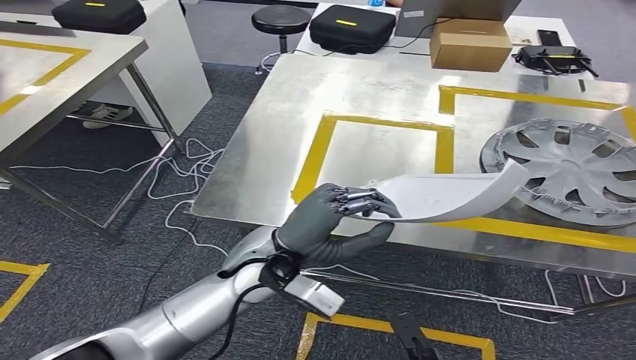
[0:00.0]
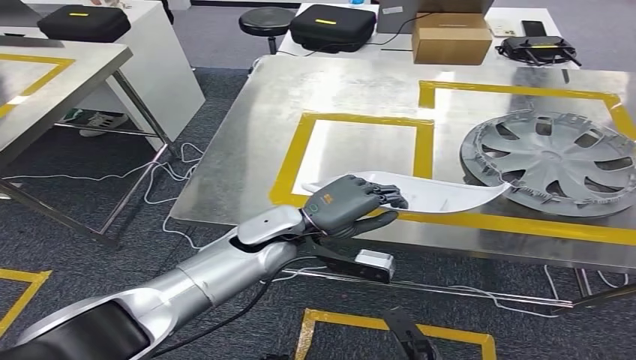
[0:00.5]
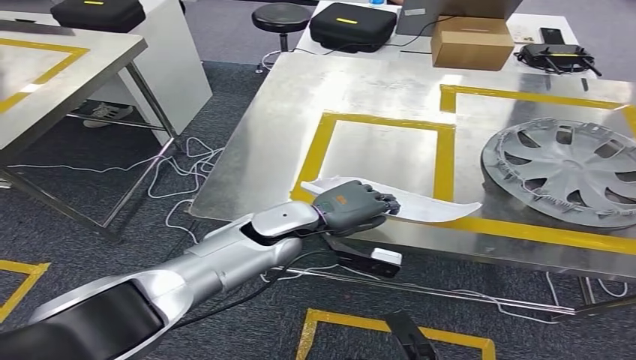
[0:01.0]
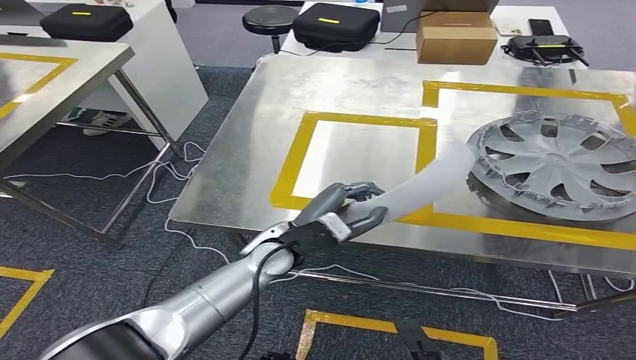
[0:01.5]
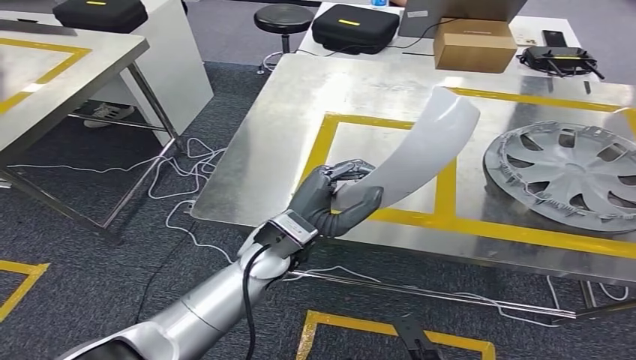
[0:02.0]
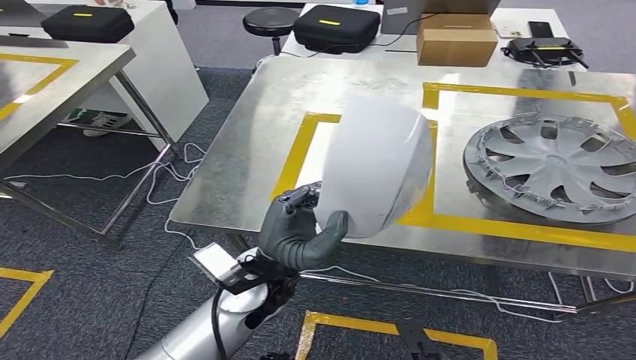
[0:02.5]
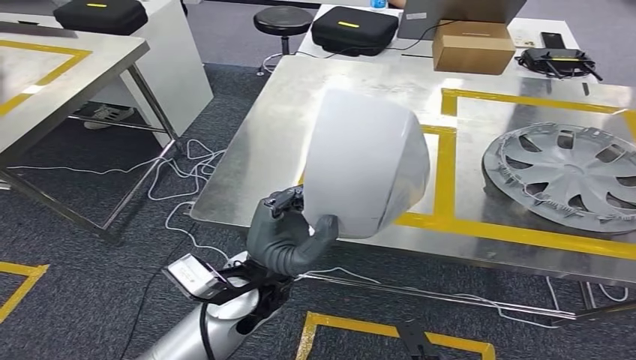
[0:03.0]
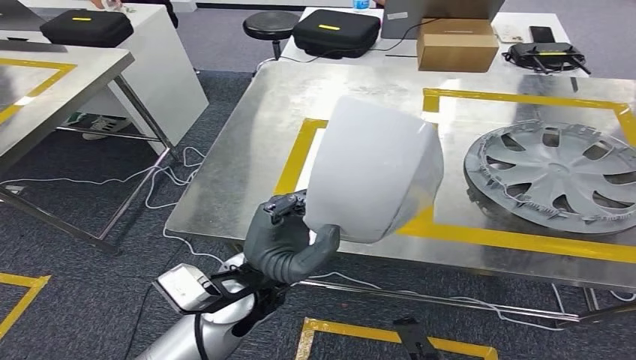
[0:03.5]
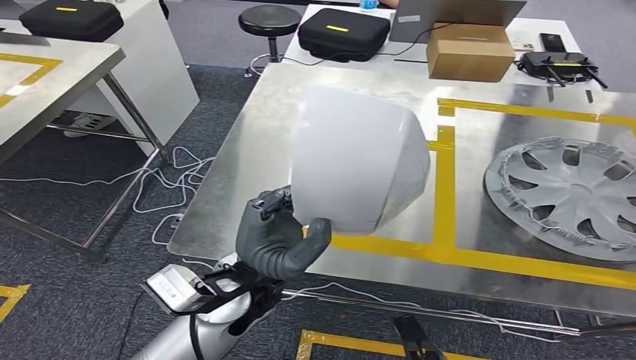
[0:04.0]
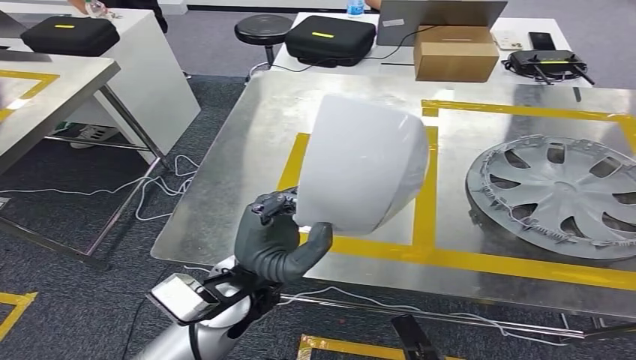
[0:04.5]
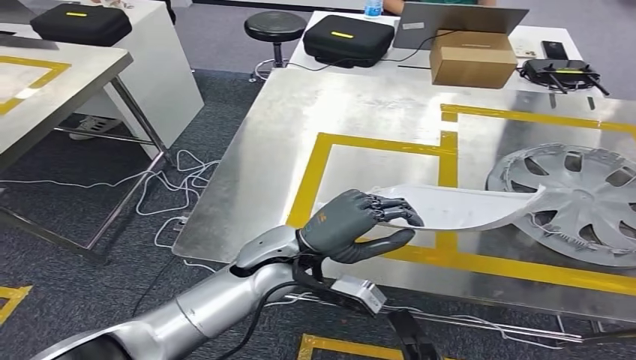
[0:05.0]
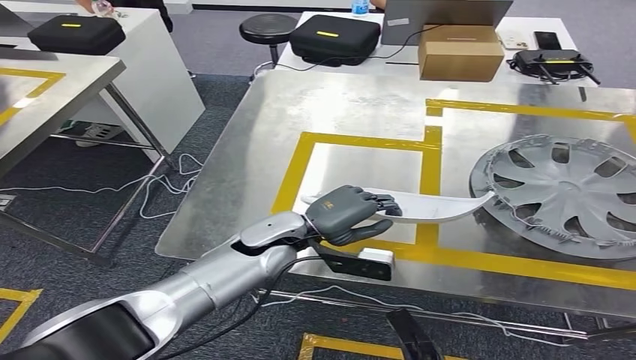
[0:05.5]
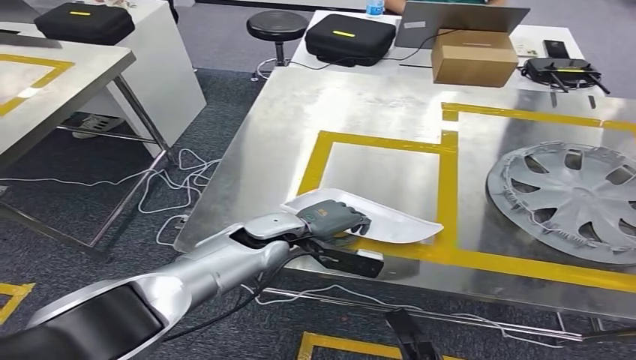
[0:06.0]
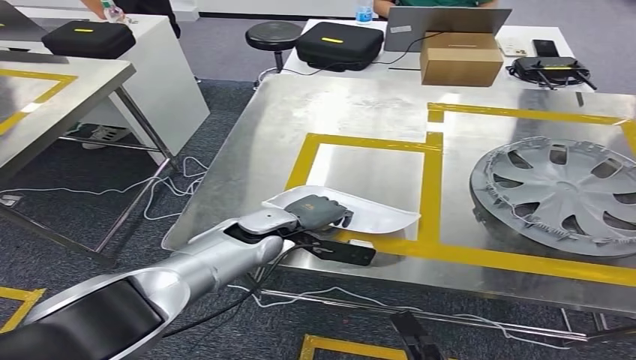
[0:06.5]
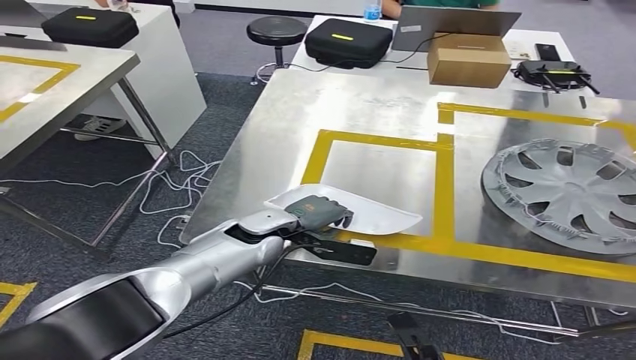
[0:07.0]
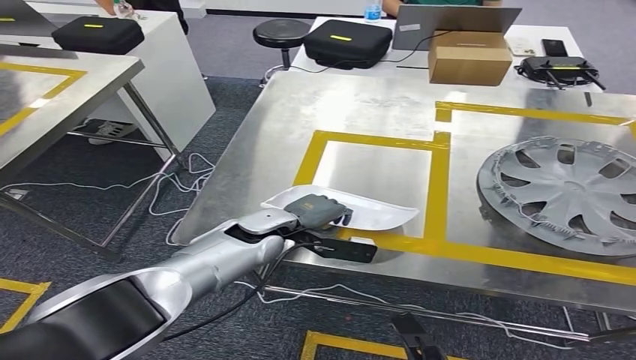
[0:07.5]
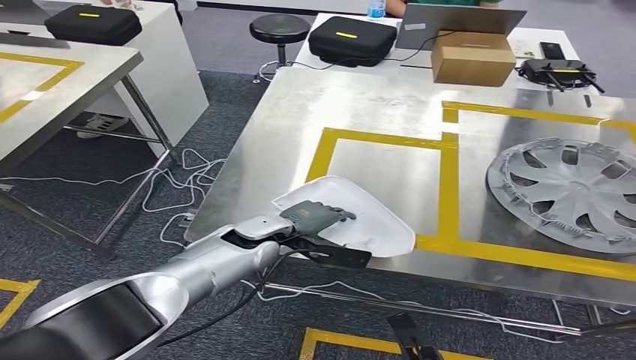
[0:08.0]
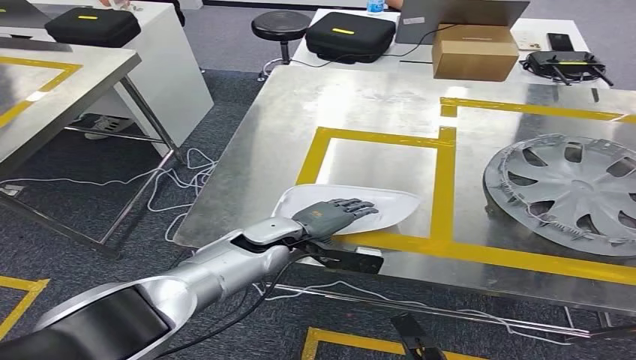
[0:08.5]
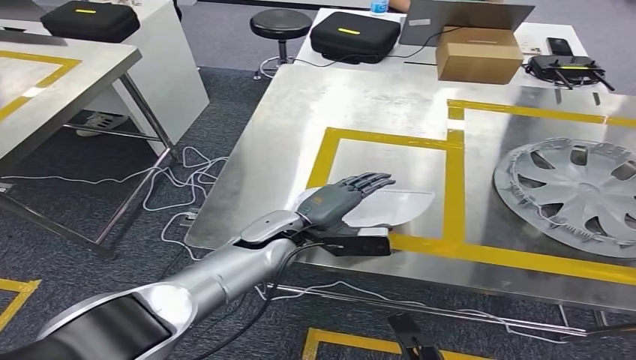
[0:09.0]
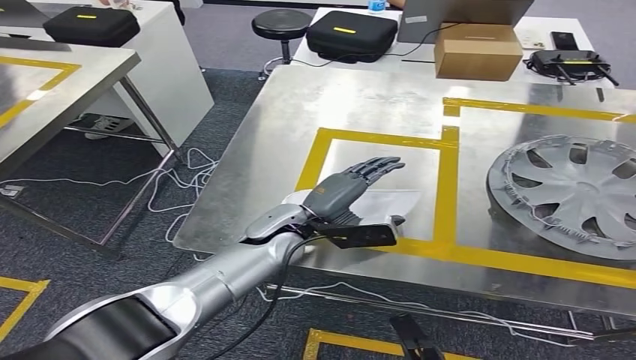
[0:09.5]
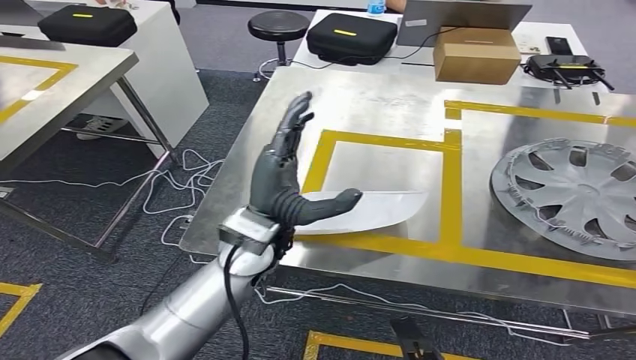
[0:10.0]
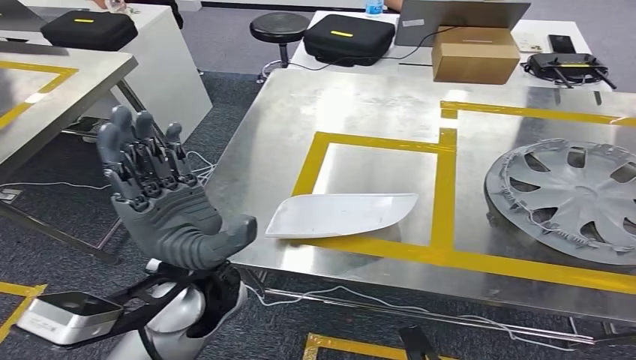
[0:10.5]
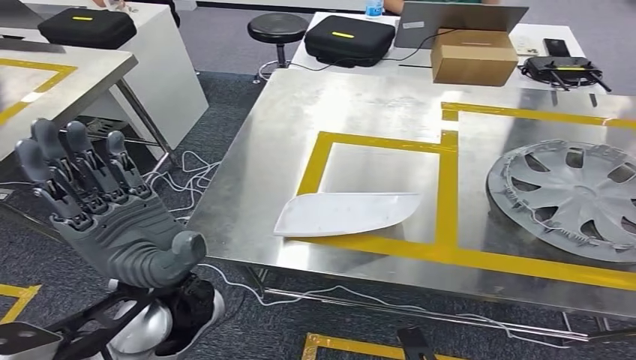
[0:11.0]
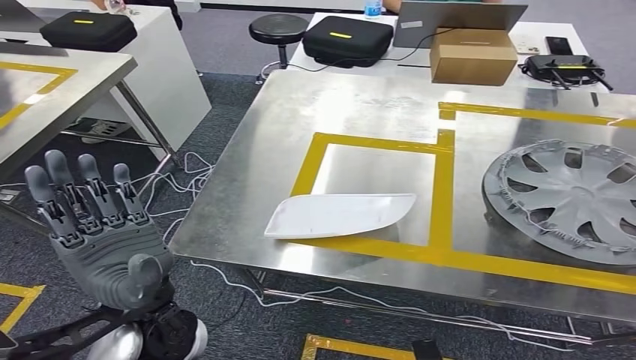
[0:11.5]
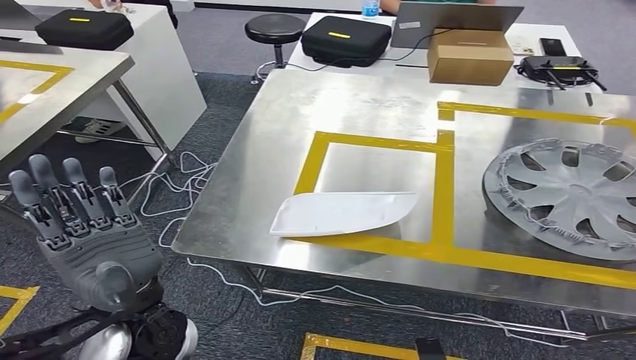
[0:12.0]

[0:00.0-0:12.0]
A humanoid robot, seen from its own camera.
Step, 0:00.0 to 0:08.5: Insert the small parts into the corresponding holes on the workbench.

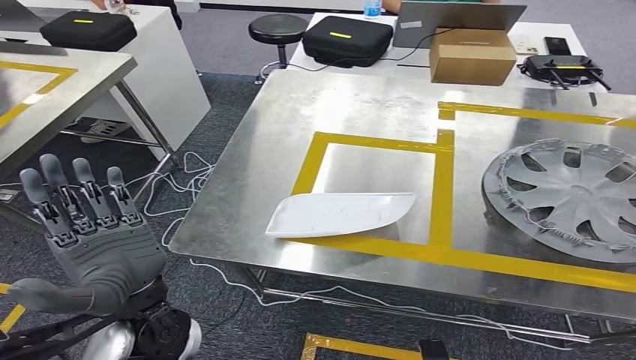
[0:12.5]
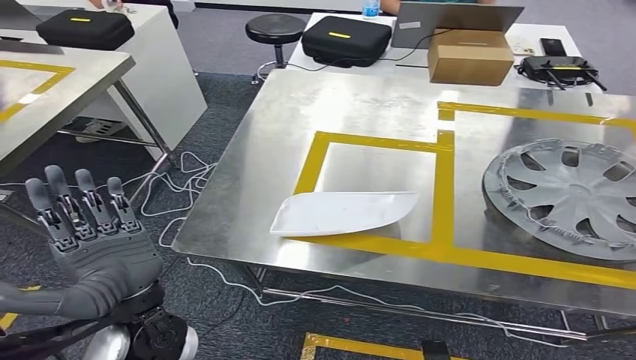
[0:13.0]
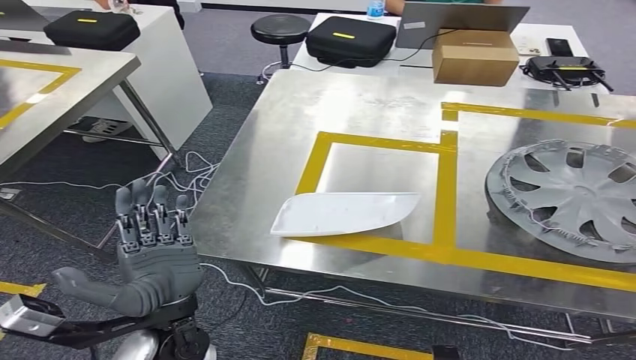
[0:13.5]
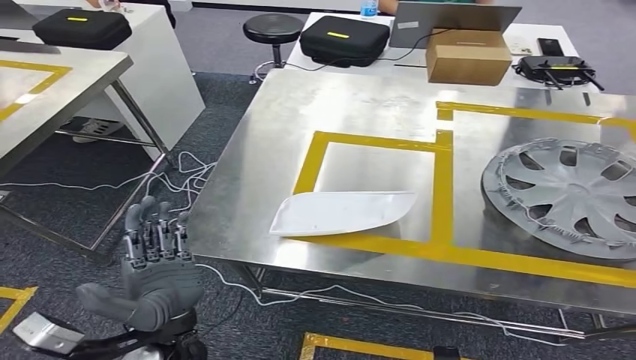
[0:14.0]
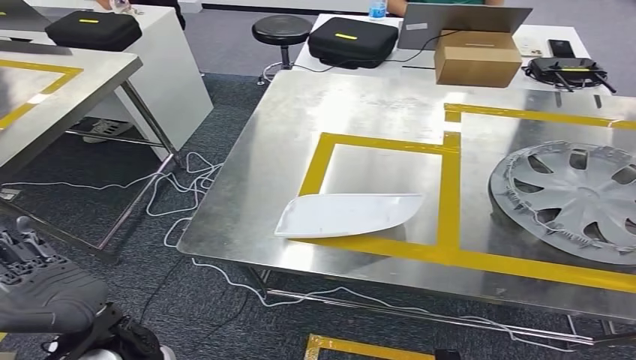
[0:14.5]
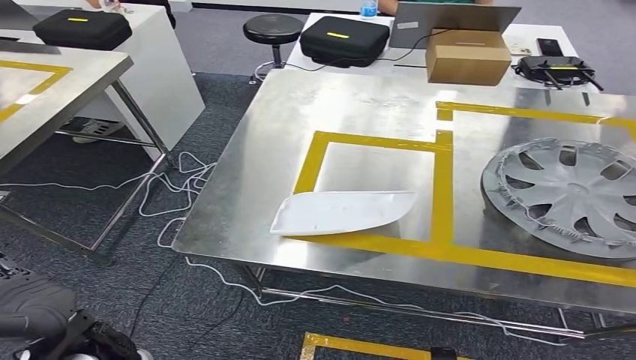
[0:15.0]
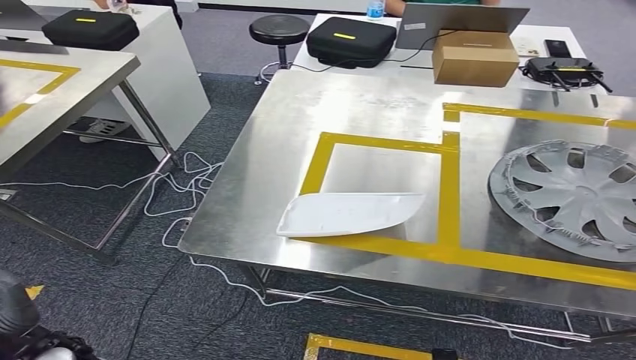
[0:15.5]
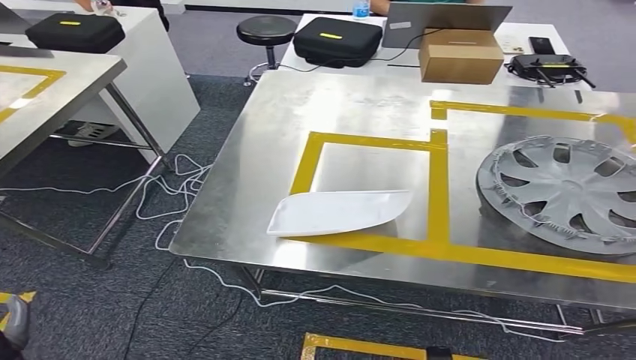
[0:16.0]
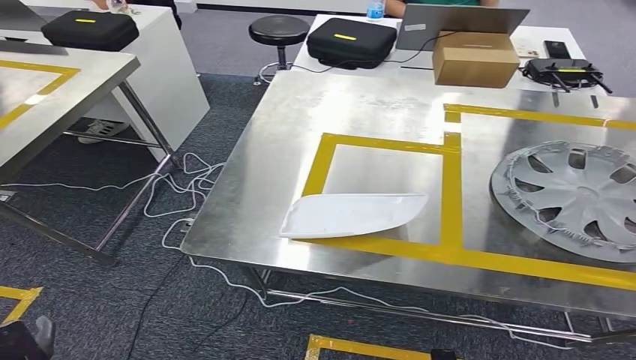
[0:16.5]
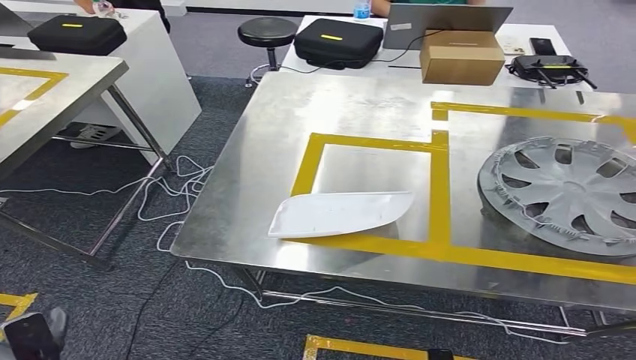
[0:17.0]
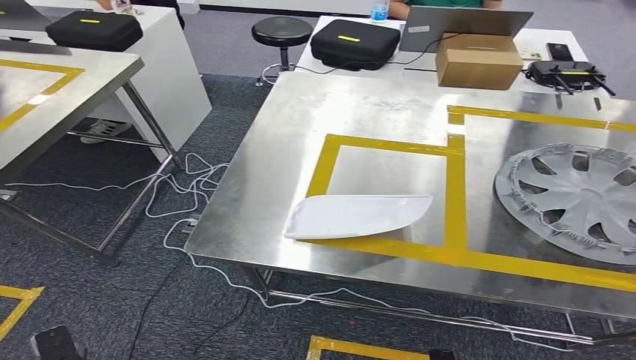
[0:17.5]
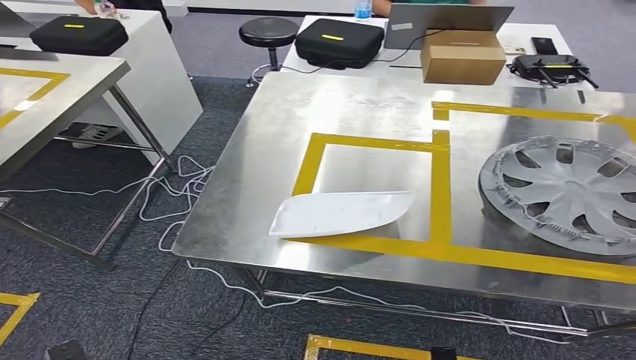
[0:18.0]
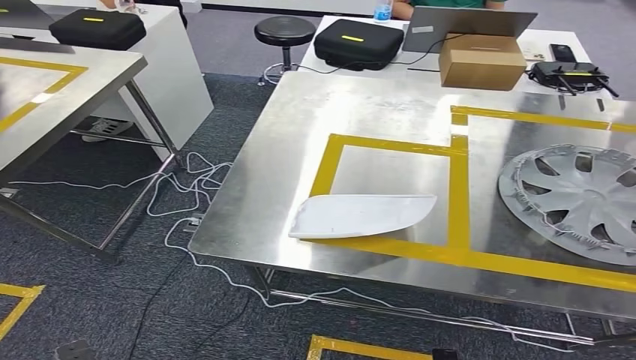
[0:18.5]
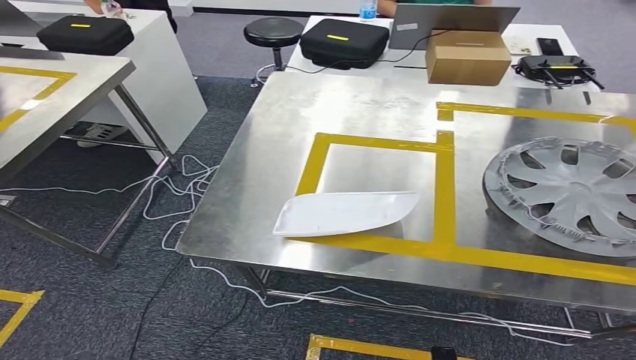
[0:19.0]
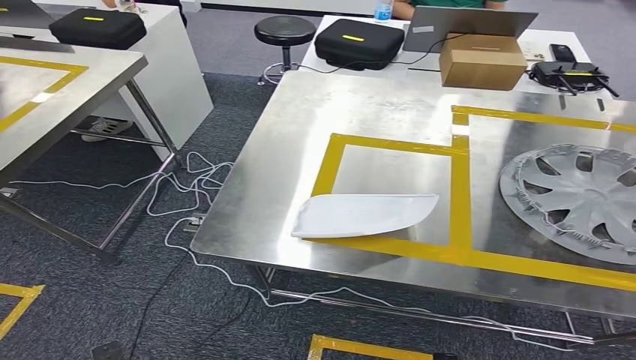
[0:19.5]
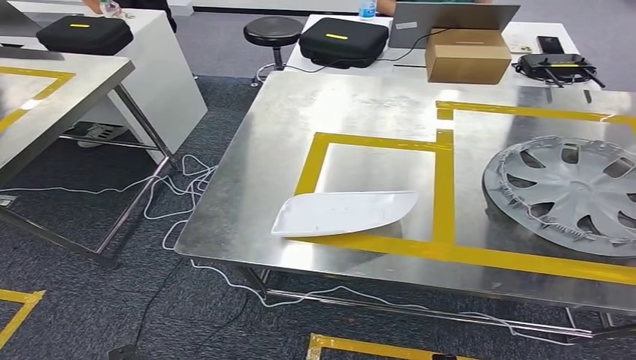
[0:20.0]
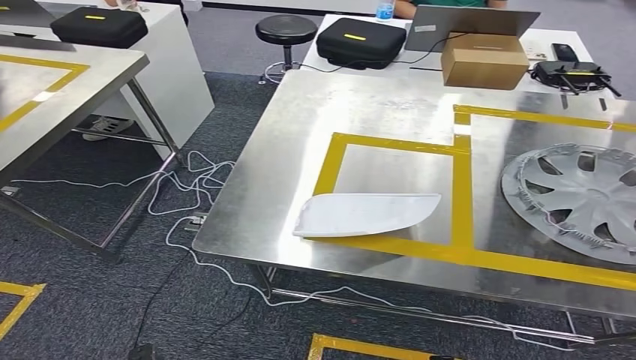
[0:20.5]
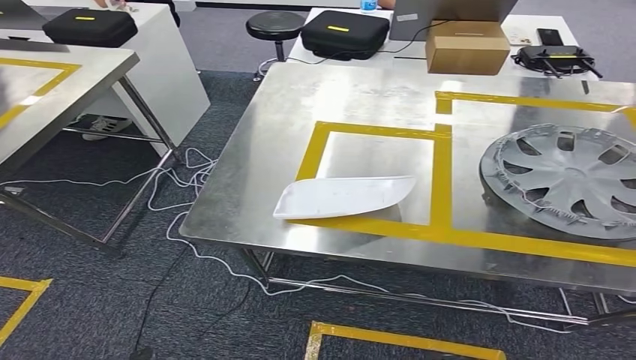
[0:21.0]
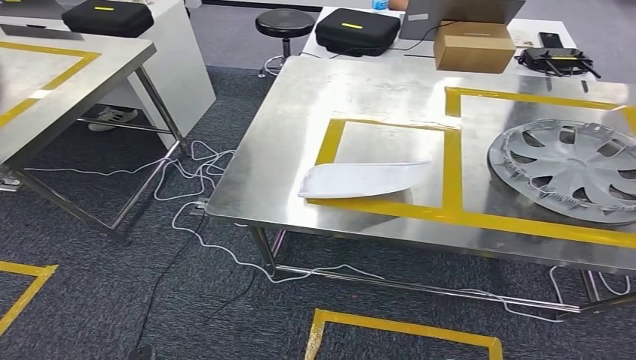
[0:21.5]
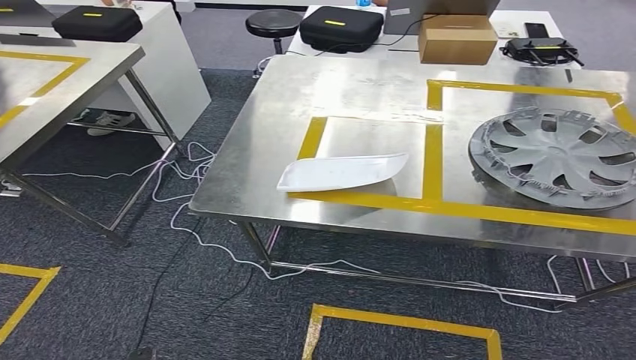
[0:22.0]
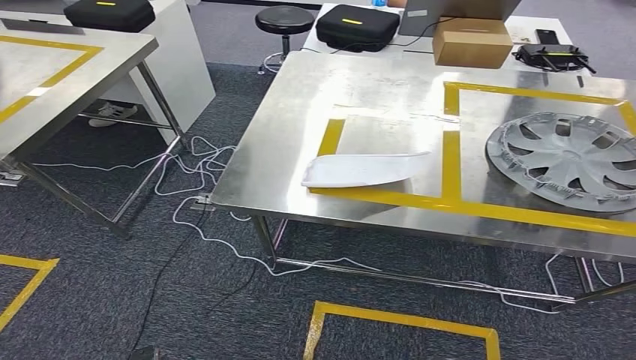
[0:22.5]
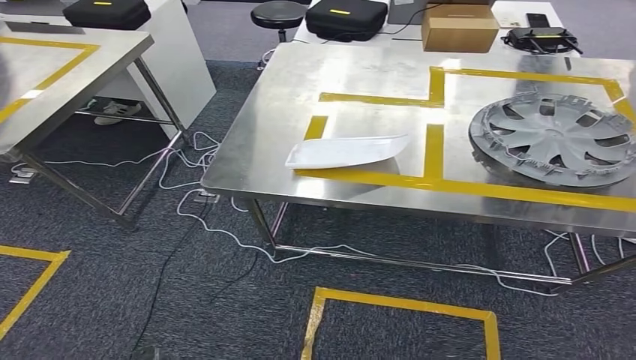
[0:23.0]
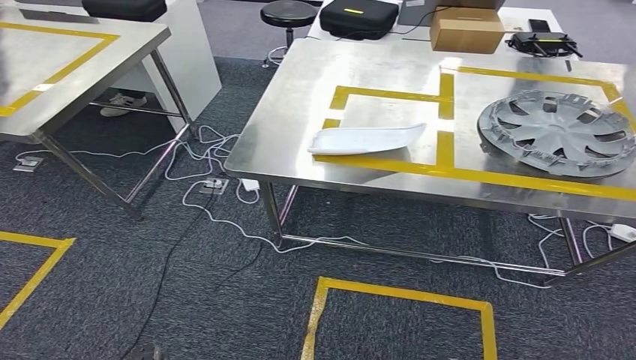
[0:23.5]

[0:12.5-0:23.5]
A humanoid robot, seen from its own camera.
0:12.5 to 0:14.5: The left hand changes place by roughly 5 cm.
0:16.0 to 0:18.0: The left hand heads downward, to the right and backward, covering some 15 cm.
0:18.0 to 0:20.0: The left hand travels to the right by about 5 cm.
